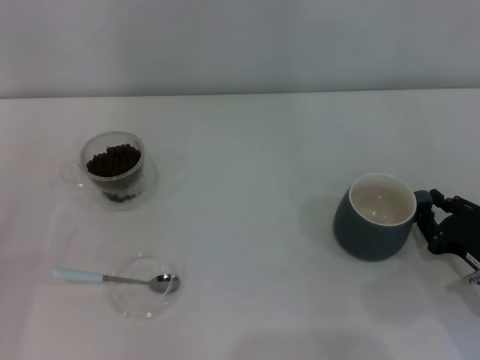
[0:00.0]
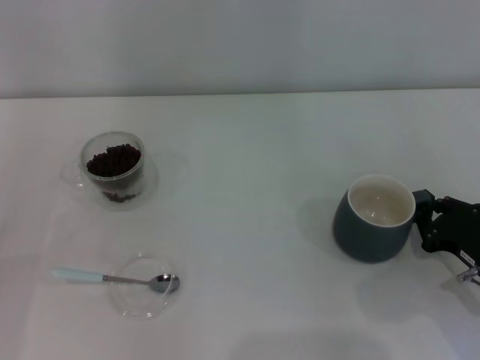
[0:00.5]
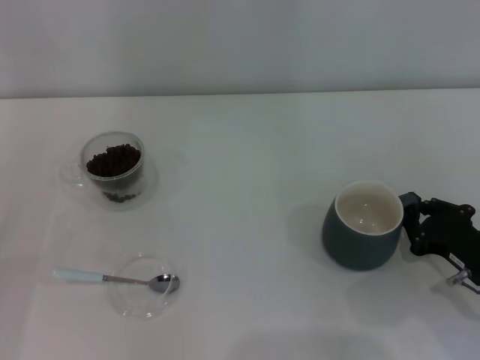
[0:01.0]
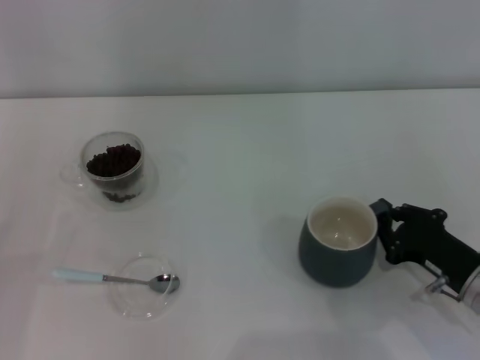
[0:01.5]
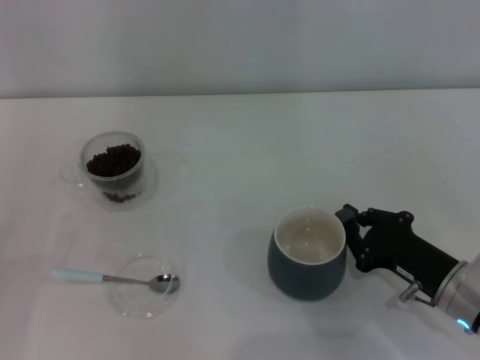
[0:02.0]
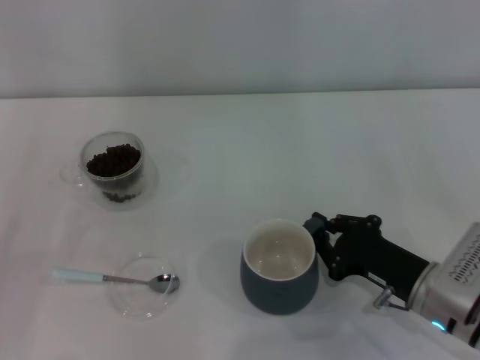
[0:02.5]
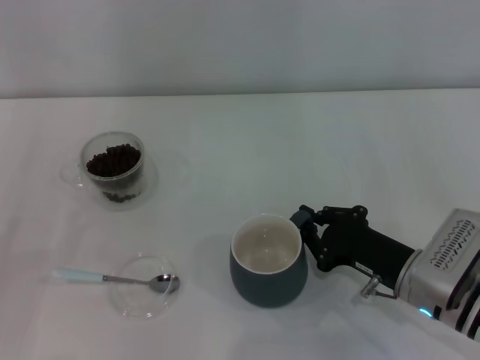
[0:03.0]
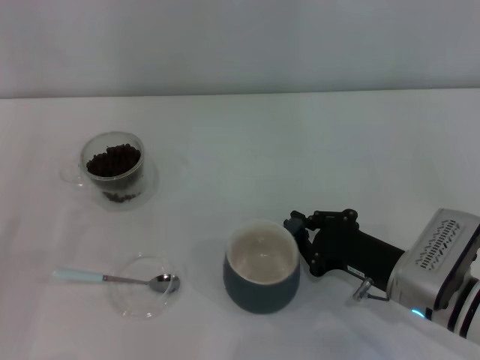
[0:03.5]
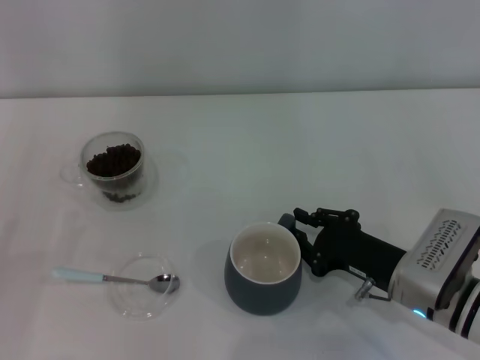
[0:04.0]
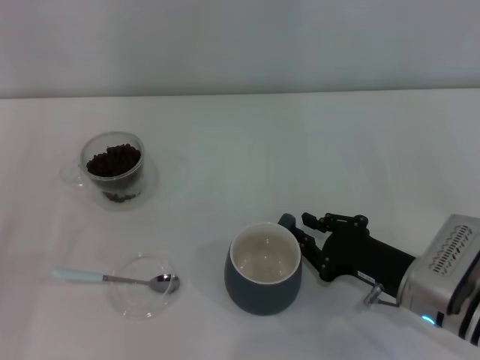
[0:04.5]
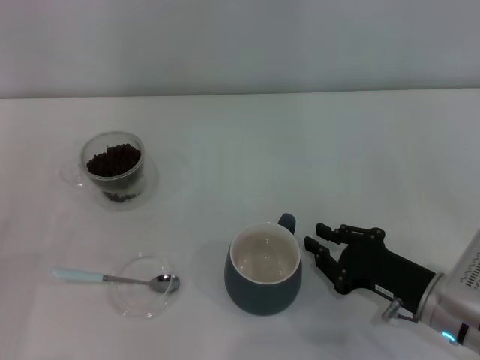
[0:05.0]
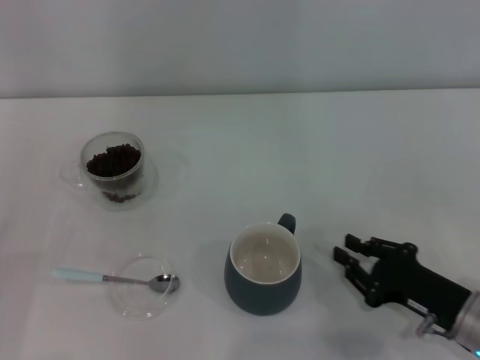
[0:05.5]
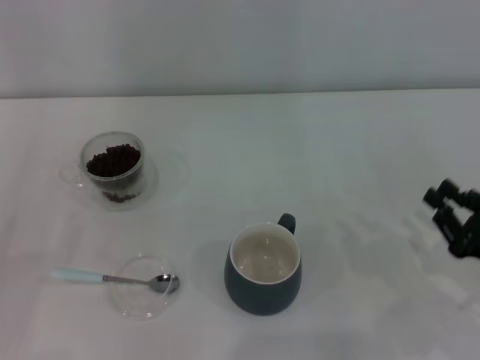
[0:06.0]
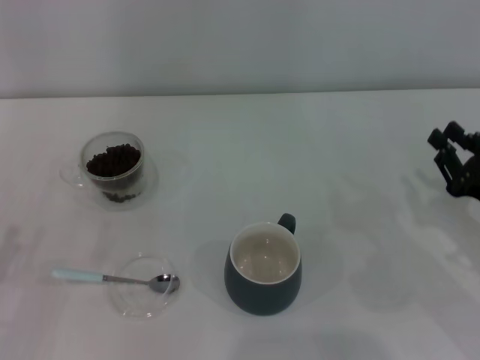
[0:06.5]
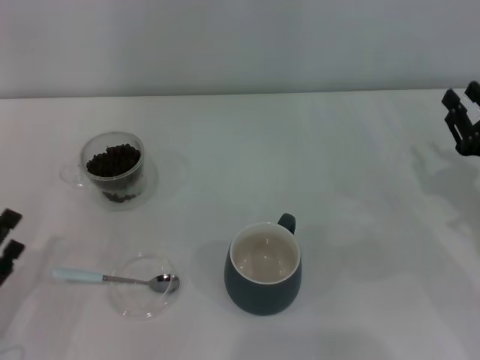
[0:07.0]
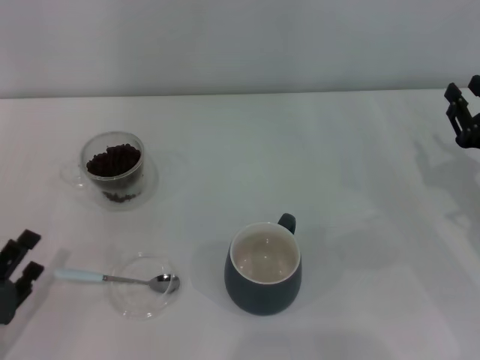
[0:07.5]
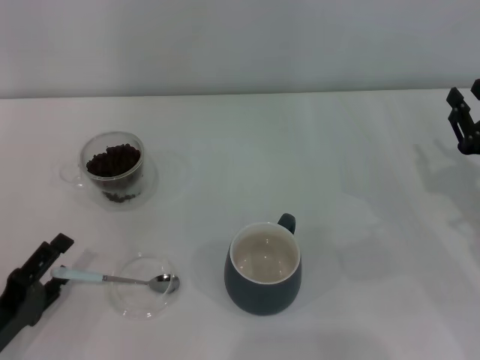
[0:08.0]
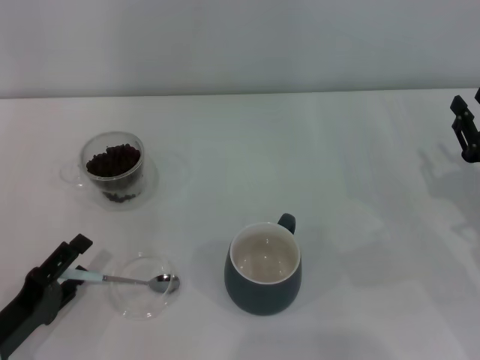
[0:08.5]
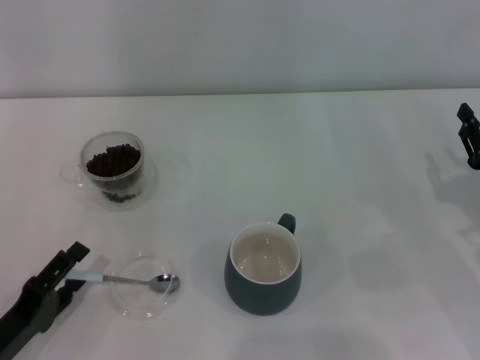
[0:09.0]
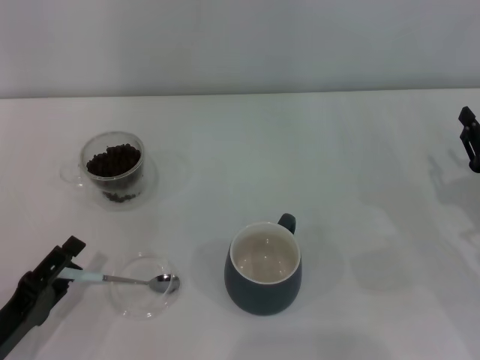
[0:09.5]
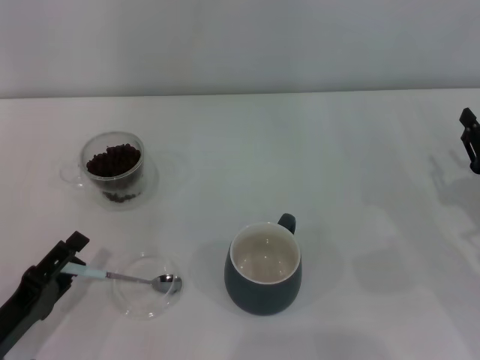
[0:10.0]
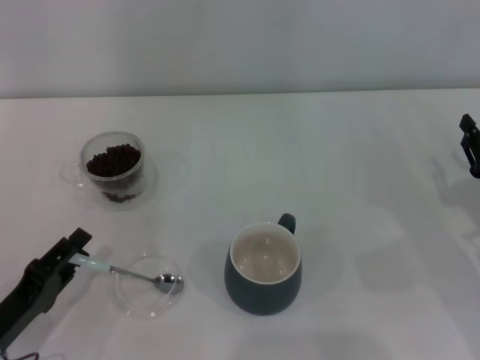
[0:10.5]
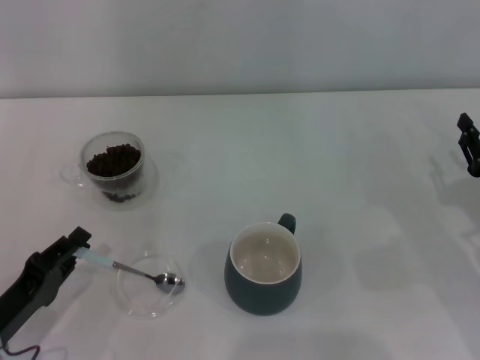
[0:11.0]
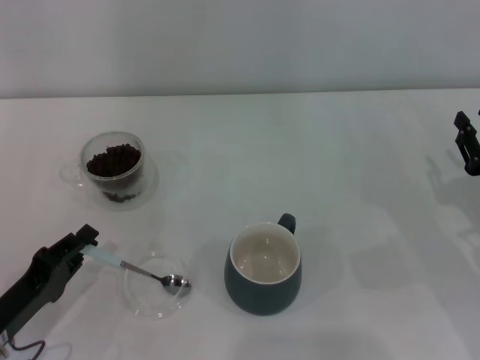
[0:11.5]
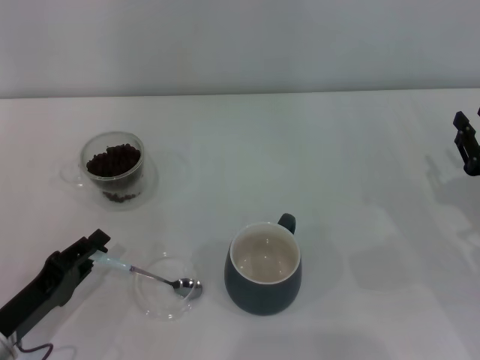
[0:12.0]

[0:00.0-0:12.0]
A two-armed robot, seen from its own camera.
Task of the whole recording: Use a blue spoon to take out the coffee beans from the glass and pour them into the gray cup.
Step, 0:00.0 to 0:05.0: Move the cup to the center of view with the left gripper.
0:00.0 to 0:02.0: The right gripper moves to the left, roughly 5 cm.
0:02.0 to 0:04.0: There are only small adjustments of the grippers.
0:04.0 to 0:06.0: The right gripper is displaced to the right and backward by roughly 15 cm.
0:06.0 to 0:08.0: The right gripper heads forward, covering roughly 10 cm. Meanwhile the left gripper travels to the right by some 10 cm.
0:08.0 to 0:10.0: The grippers make only small movements.
0:10.0 to 0:12.0: The left gripper closes up.

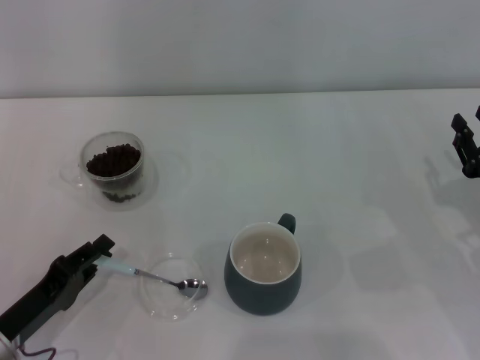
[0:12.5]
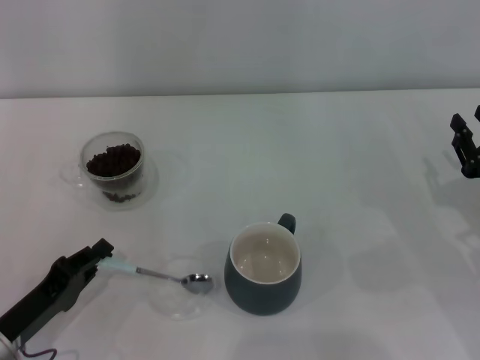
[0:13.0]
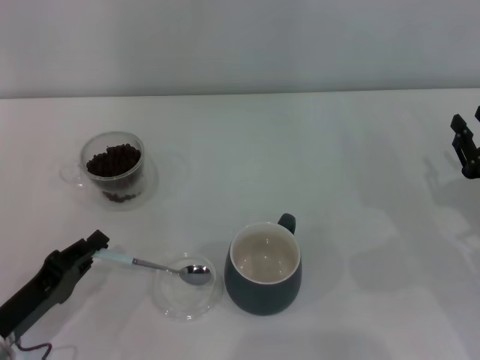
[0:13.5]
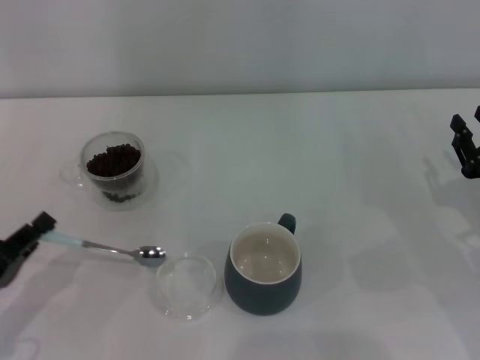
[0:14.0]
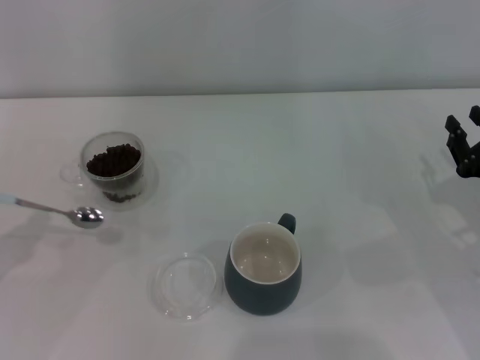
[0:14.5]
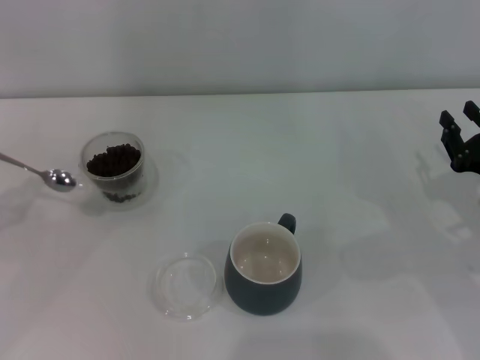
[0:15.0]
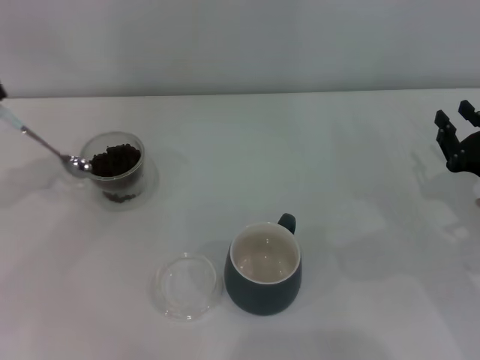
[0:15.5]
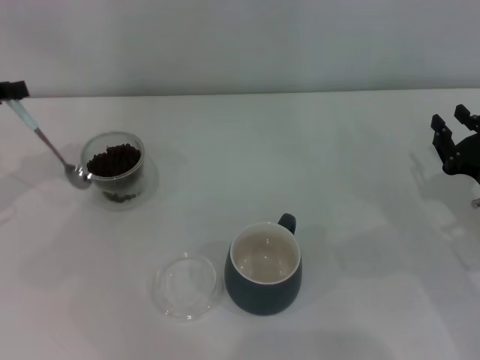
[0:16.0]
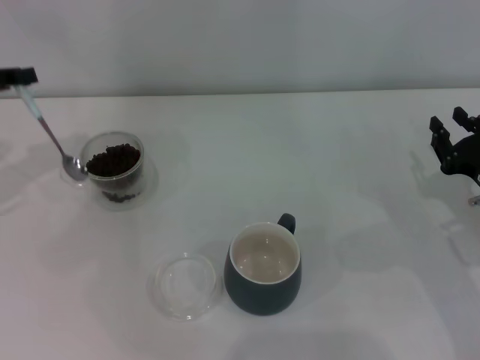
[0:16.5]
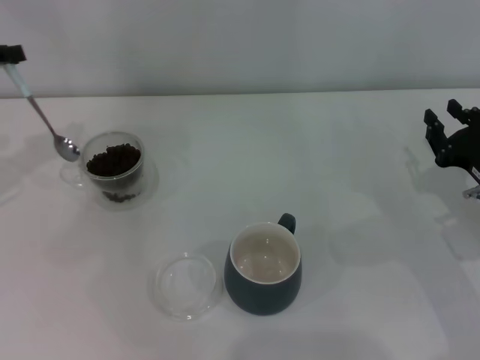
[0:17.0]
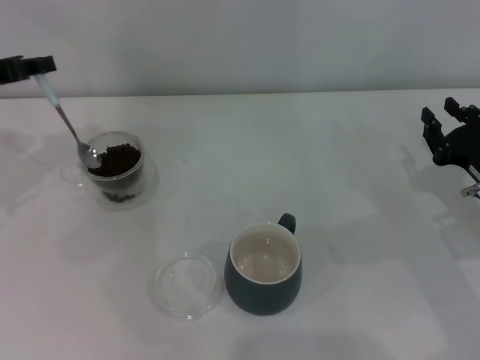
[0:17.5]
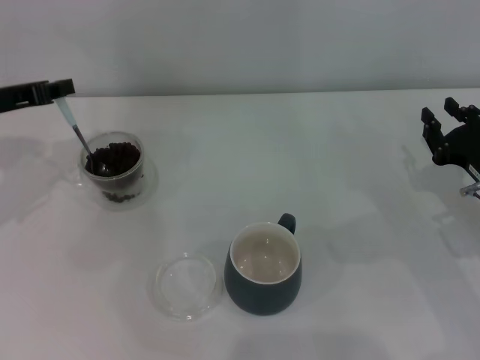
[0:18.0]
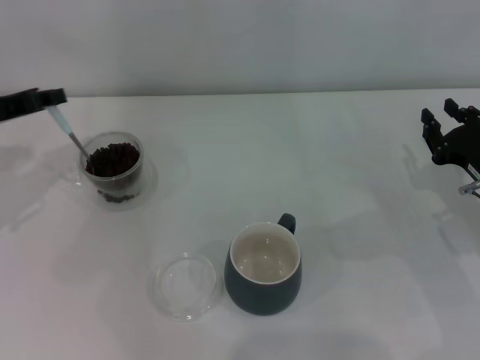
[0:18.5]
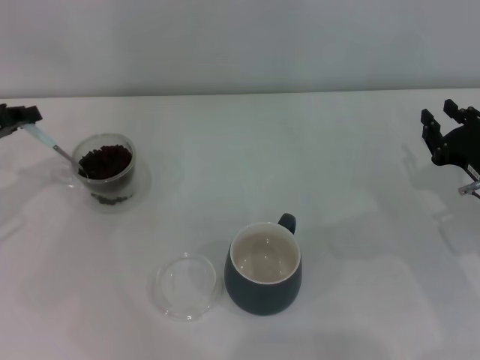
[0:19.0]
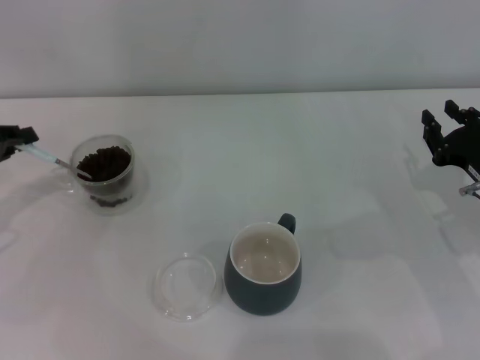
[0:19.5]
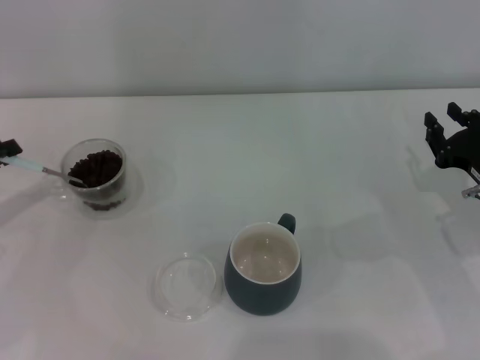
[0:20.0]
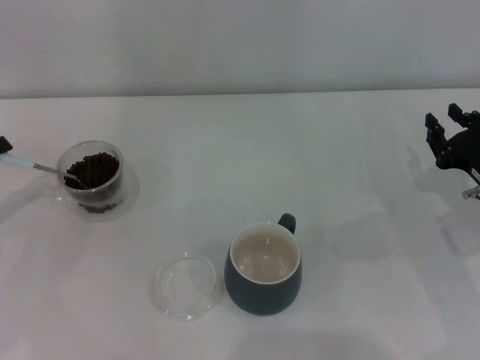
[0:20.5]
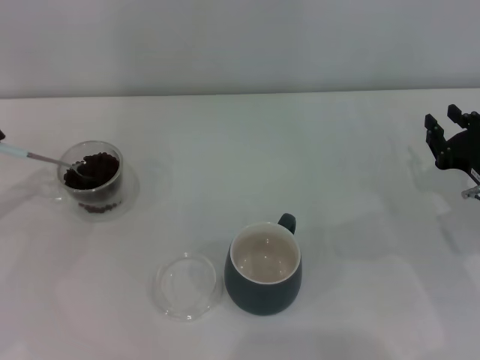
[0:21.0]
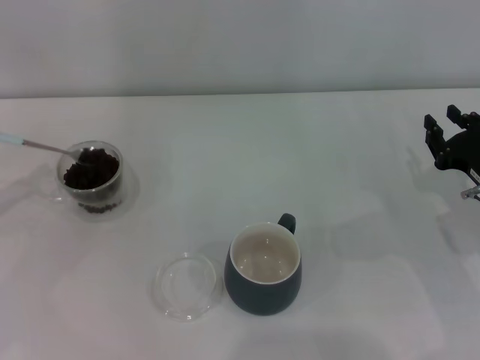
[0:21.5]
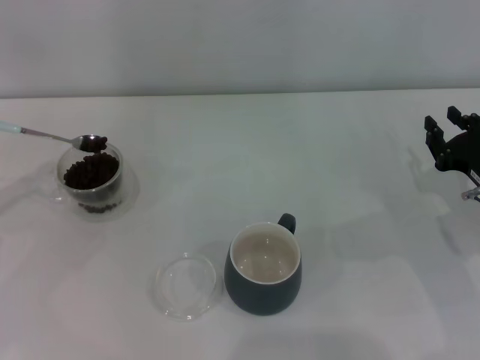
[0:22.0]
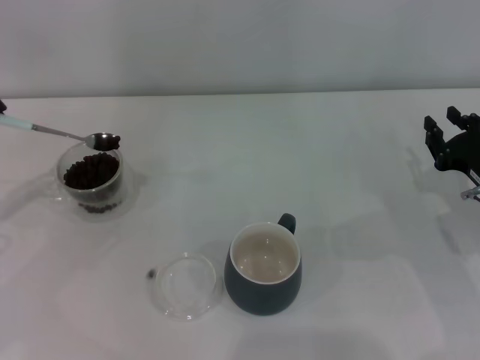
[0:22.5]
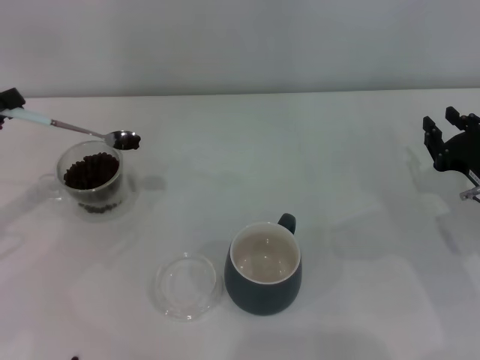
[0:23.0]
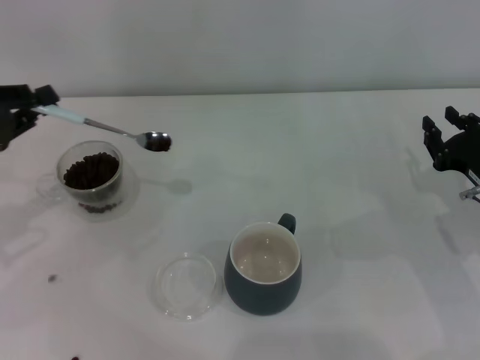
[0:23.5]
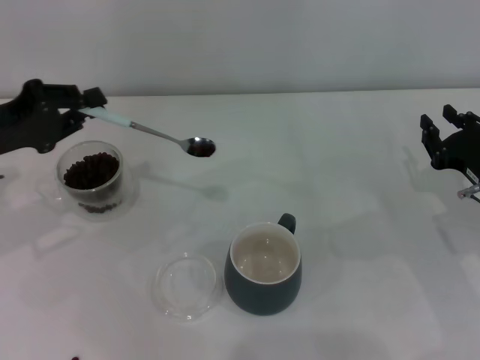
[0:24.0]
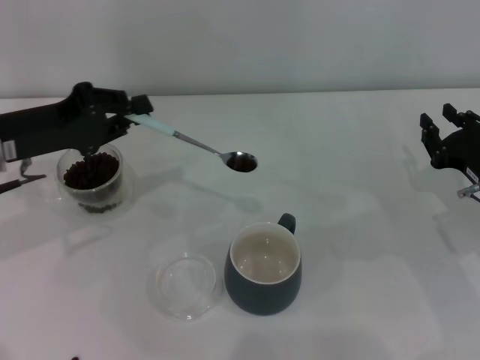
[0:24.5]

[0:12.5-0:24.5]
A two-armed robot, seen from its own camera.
Task of the whole recording: Use a blue spoon to take out the coffee beans from the glass and pour them into the gray cup.
0:12.5 to 0:14.5: The left gripper goes roughly 10 cm to the left and upward.
0:14.5 to 0:16.5: The left gripper moves forward and upward, roughly 20 cm.
0:16.5 to 0:18.5: The grippers make only small movements.
0:18.5 to 0:20.5: The left gripper travels to the left and backward by some 10 cm.
0:20.5 to 0:22.5: The grippers stay close to where they were, moving slightly.
0:22.5 to 0:24.5: The left gripper moves to the right, about 10 cm.

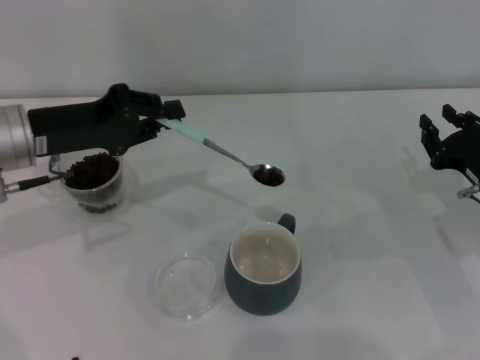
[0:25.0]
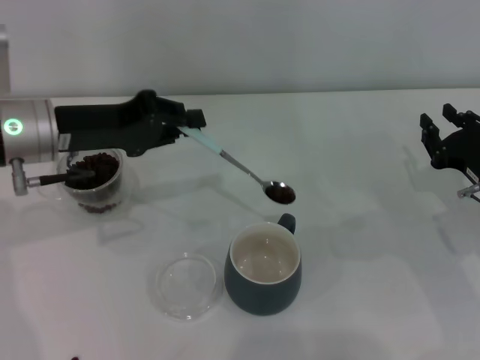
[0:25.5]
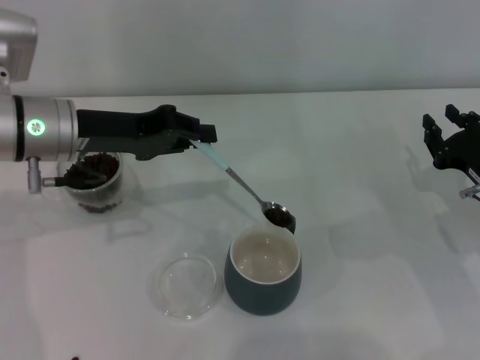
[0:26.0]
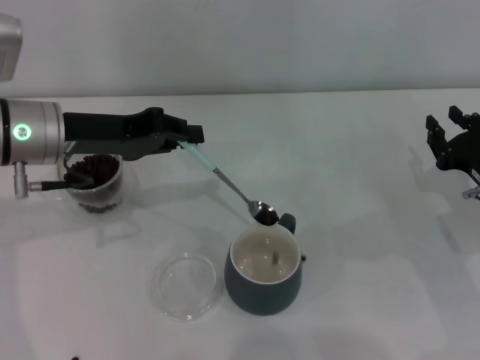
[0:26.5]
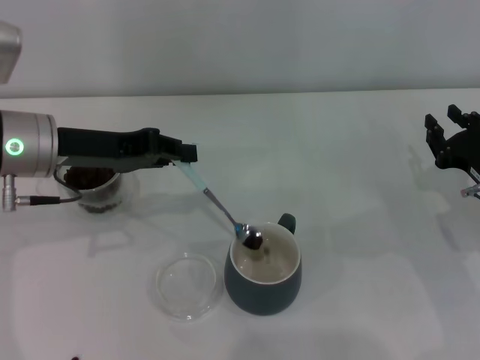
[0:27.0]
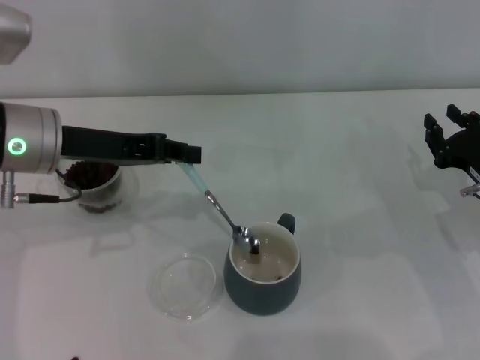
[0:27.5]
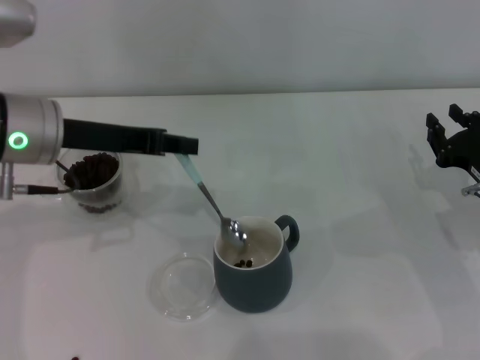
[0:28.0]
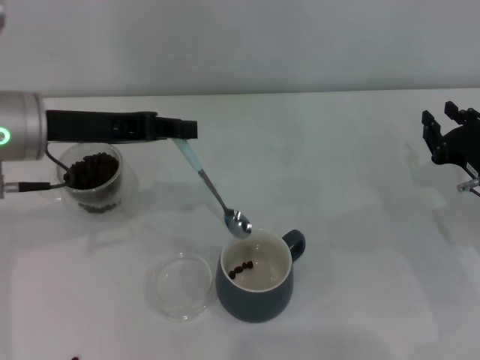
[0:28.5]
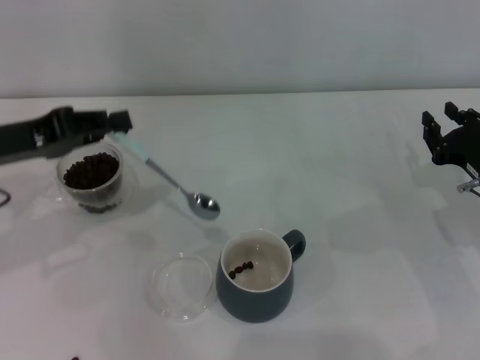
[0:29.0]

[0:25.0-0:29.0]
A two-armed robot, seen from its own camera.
Task of the whole recording: Use a blue spoon to take out the coffee beans from the glass and pour them into the gray cup.
0:27.0 to 0:29.0: The left gripper is displaced to the left by approximately 5 cm.
